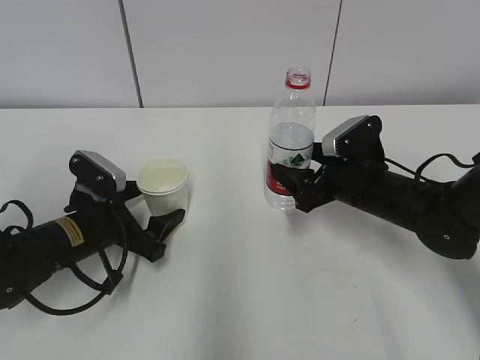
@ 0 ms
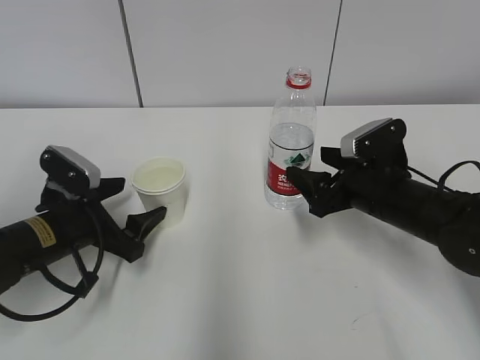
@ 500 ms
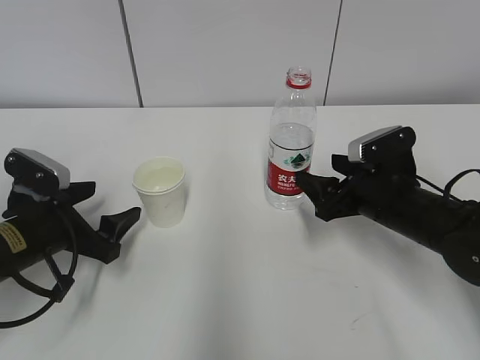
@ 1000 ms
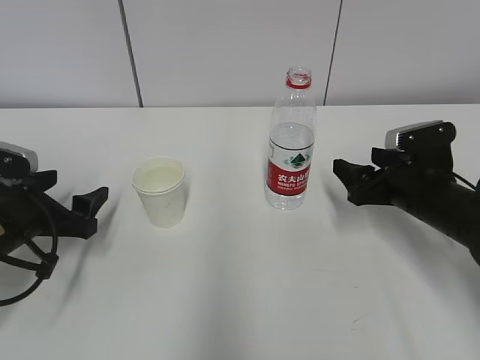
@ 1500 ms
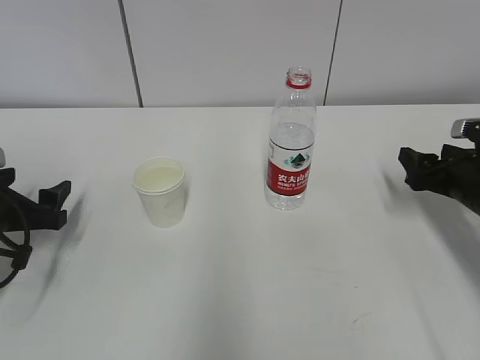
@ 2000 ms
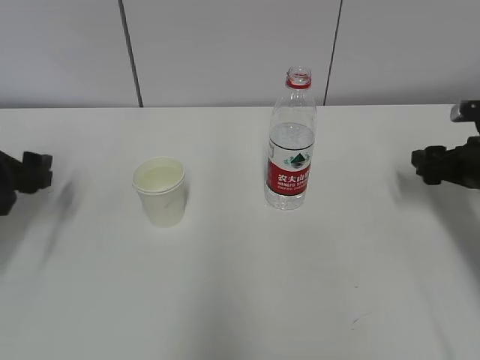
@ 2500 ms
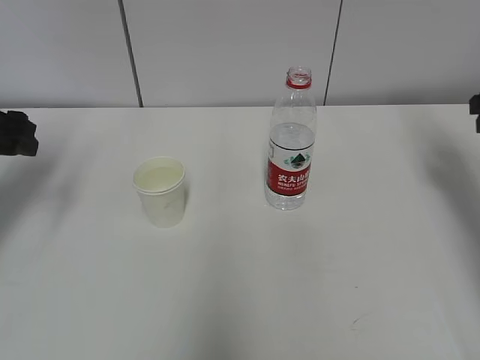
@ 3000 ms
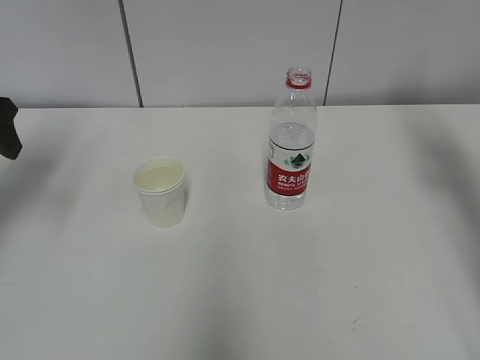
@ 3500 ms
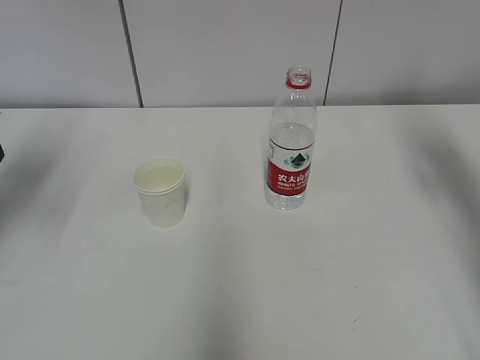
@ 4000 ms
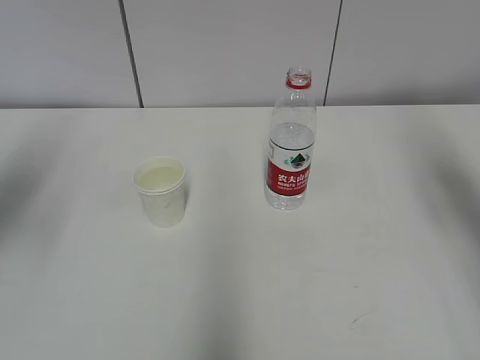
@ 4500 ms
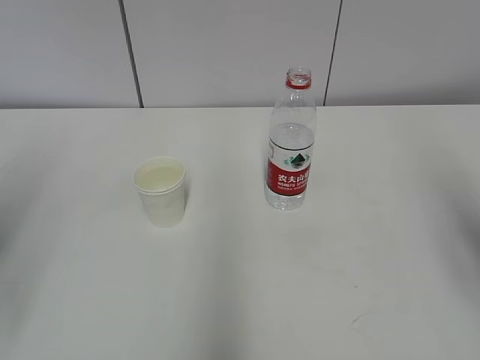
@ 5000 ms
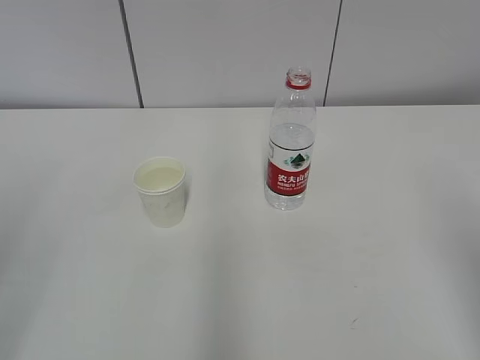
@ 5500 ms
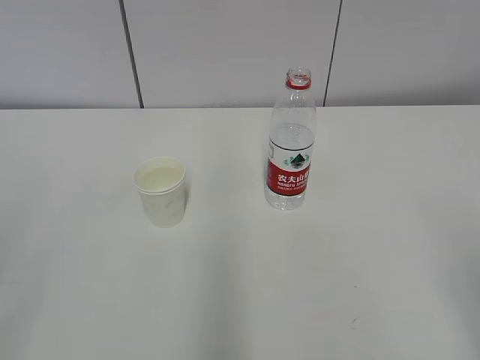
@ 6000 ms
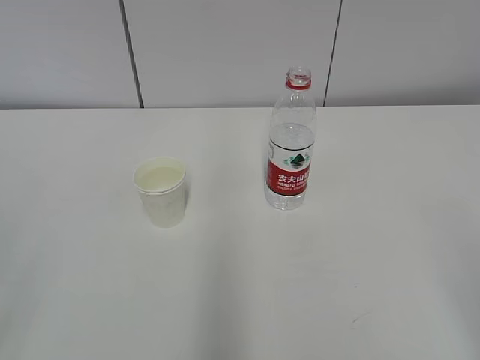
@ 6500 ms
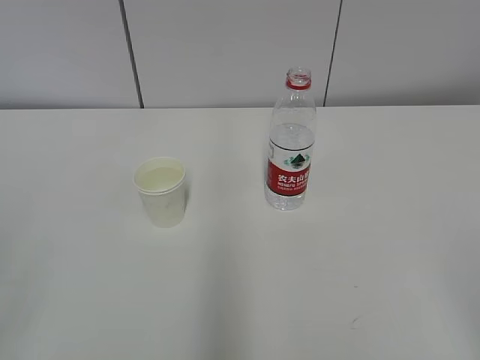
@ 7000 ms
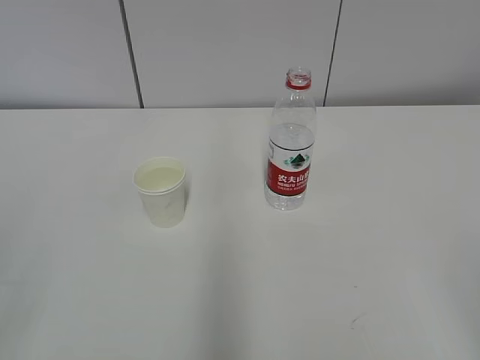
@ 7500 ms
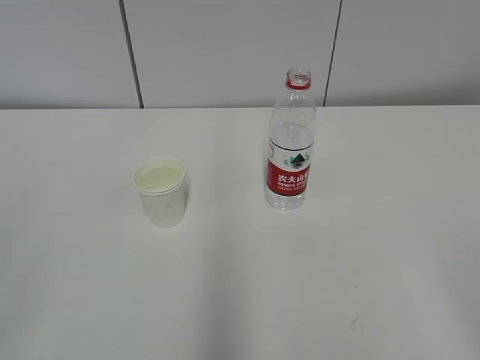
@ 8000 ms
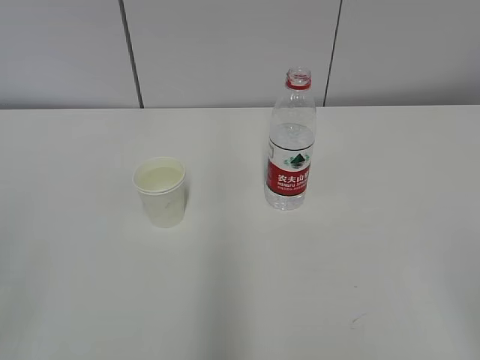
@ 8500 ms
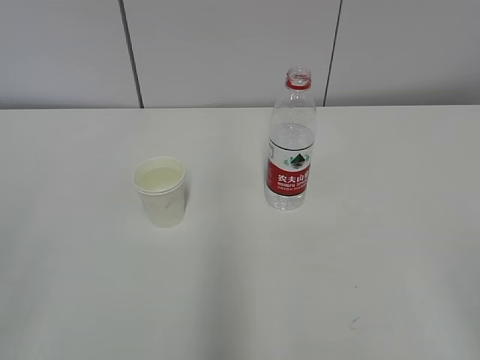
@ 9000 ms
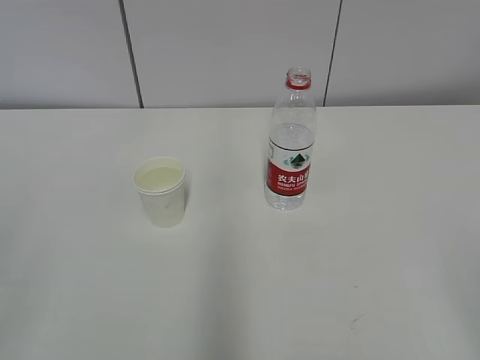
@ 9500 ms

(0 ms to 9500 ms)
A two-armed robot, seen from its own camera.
0 ms - 2000 ms: The right gripper shifts some 15 cm to the right, while the left gripper travels to the left by some 10 cm.
2000 ms - 4000 ms: The two grippers go approximately 20 cm upward.
4000 ms - 5500 ms: Both grippers move backward, approximately 25 cm.
7500 ms - 9500 ms: The two grippers keep their place.

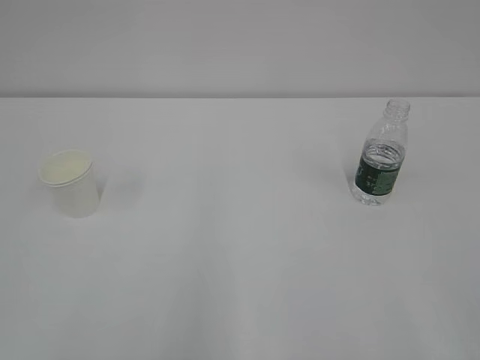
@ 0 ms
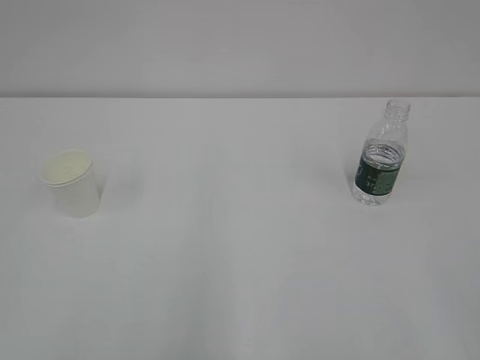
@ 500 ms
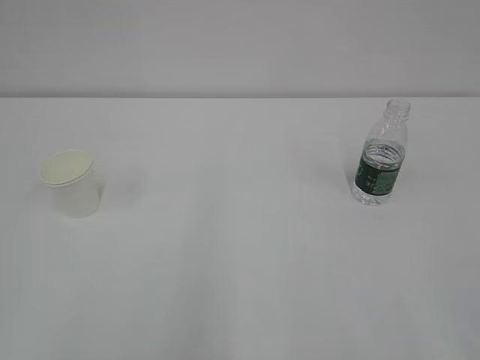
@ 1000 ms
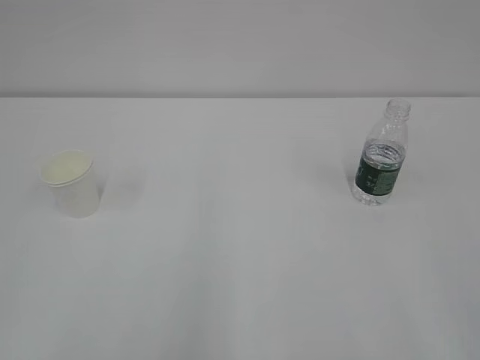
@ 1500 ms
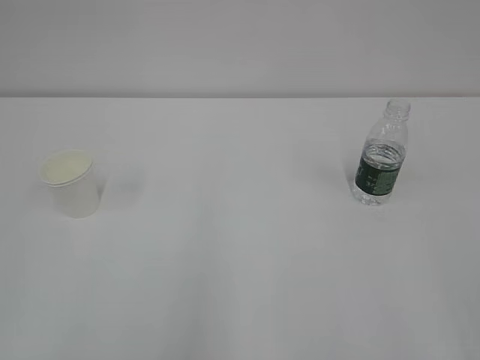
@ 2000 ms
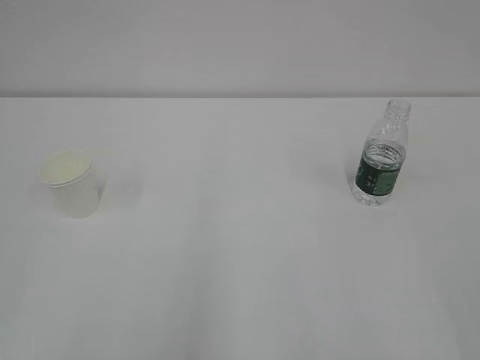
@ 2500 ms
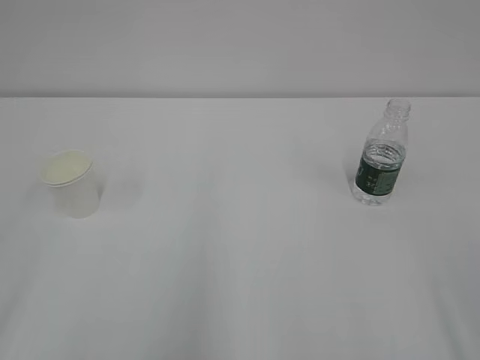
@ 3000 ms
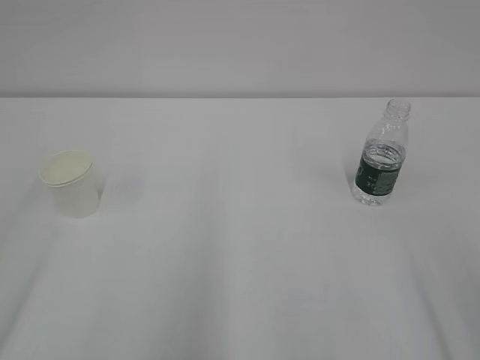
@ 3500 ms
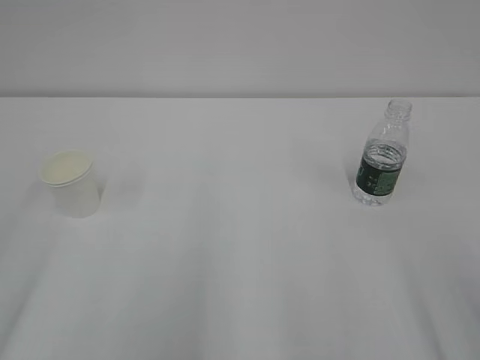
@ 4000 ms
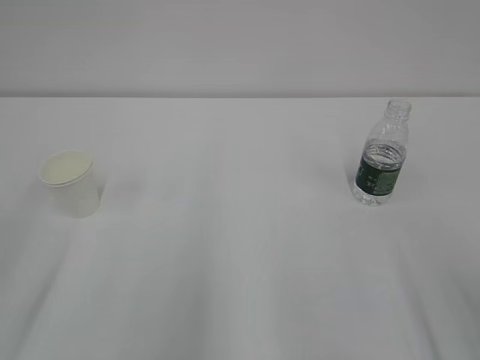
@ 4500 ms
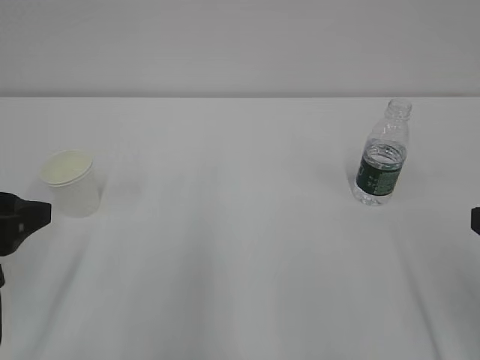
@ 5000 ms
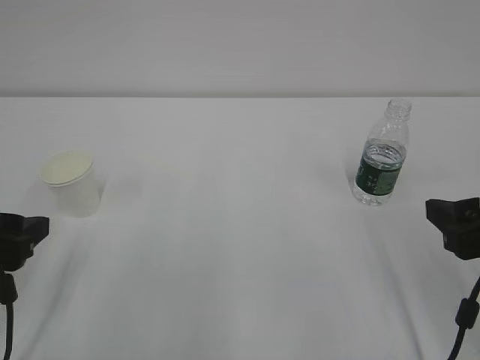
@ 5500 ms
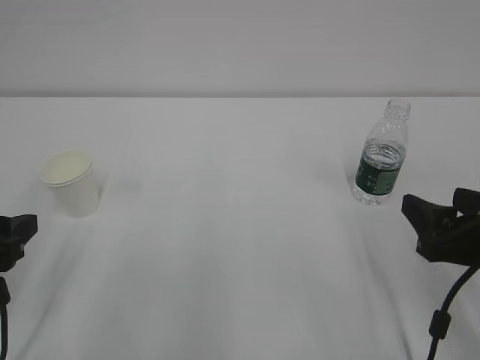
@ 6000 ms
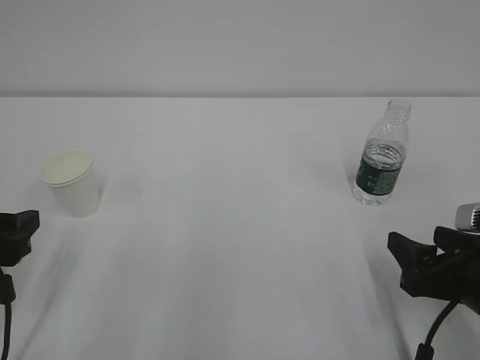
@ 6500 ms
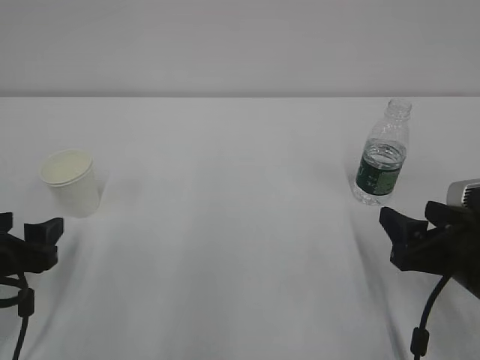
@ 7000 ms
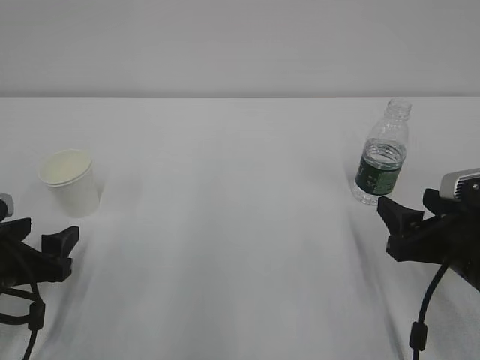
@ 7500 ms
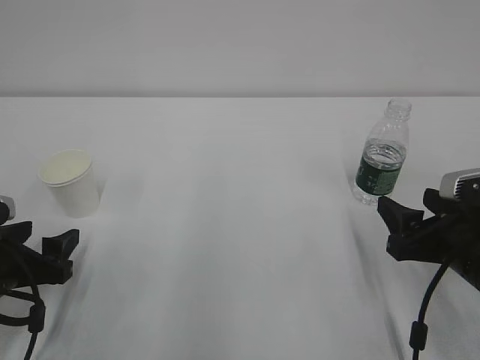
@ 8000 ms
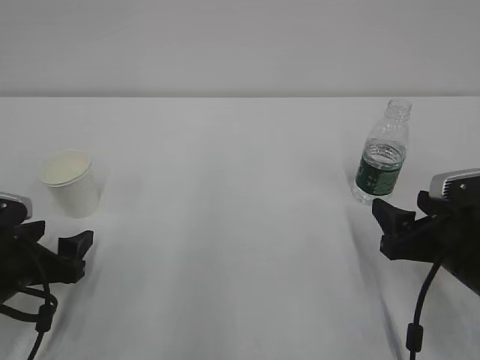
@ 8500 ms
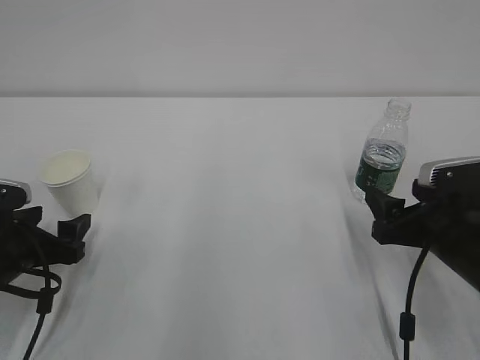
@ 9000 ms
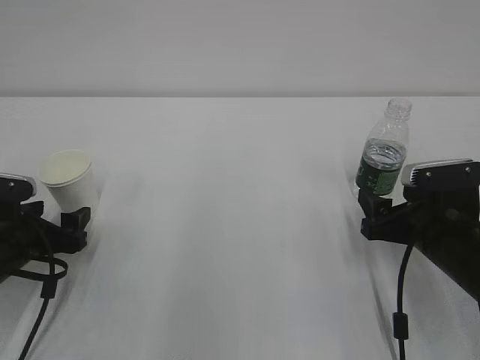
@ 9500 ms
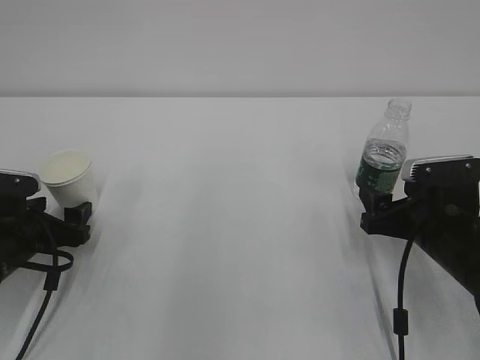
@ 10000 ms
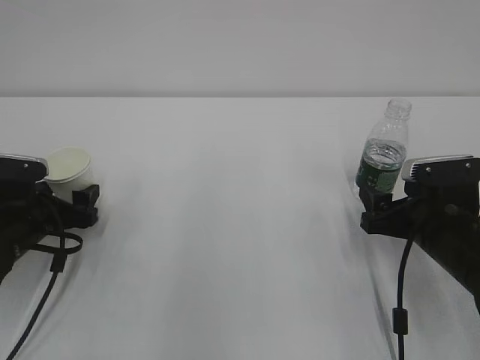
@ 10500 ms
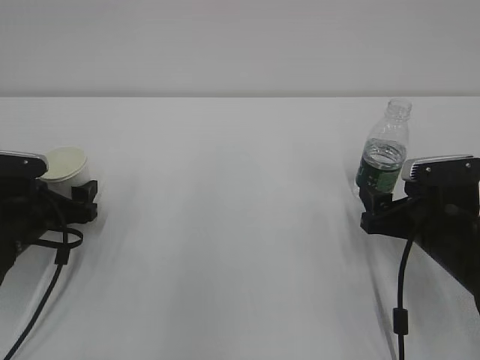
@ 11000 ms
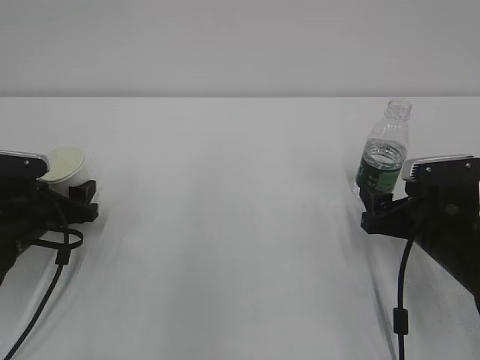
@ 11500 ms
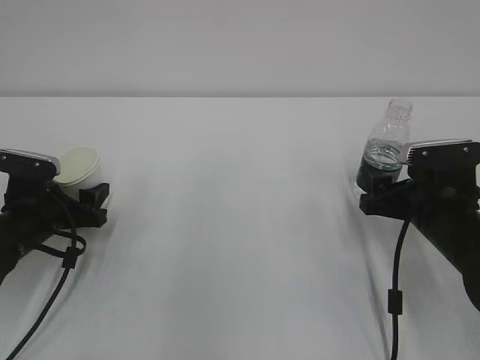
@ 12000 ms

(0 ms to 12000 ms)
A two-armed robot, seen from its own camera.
4000 ms - 6000 ms: The right gripper shifts some 15 cm forward and downward; the left gripper shifts about 15 cm downward and forward.
6000 ms - 8000 ms: The left gripper travels downward by approximately 10 cm.
8000 ms - 10000 ms: The grippers both shift forward by about 5 cm.
10000 ms - 12000 ms: The left gripper closes up.

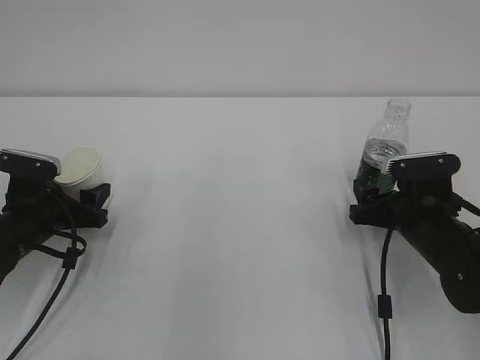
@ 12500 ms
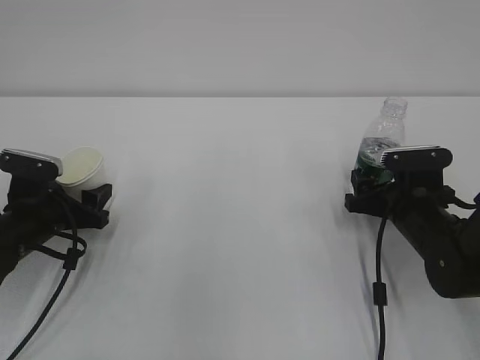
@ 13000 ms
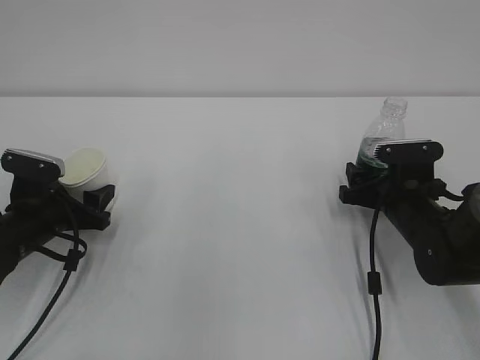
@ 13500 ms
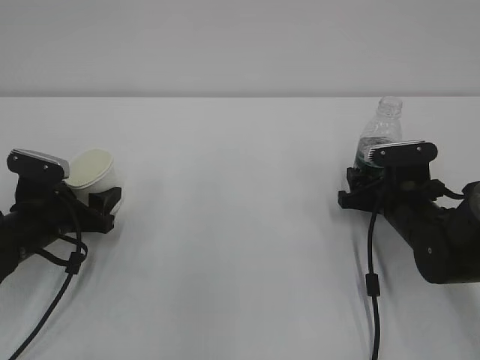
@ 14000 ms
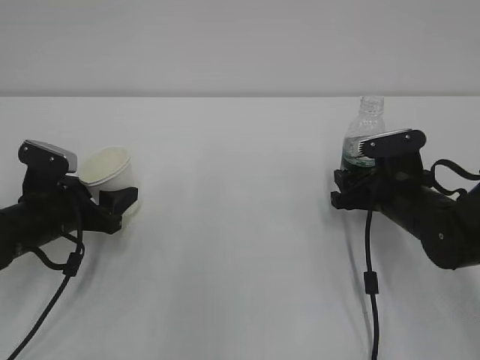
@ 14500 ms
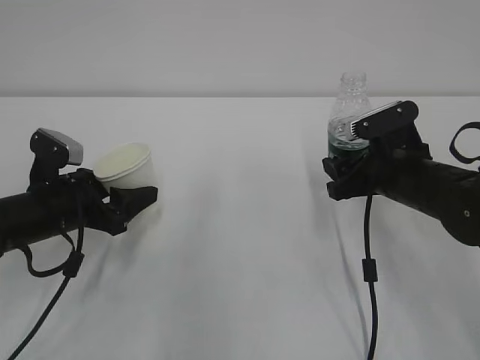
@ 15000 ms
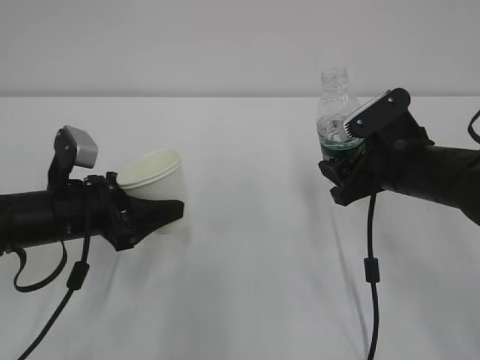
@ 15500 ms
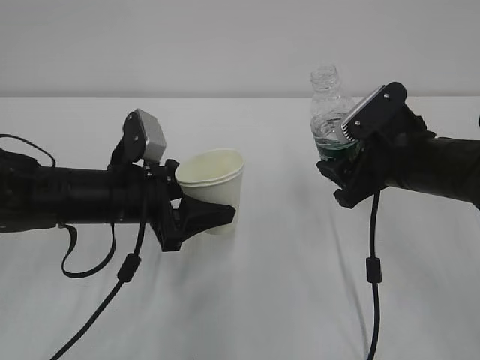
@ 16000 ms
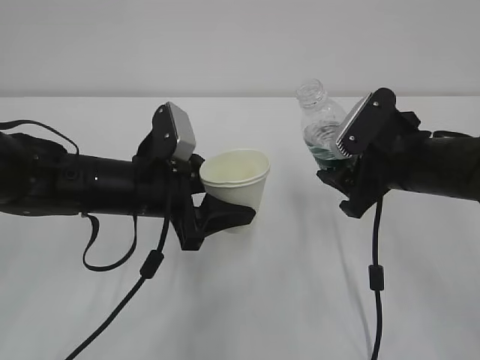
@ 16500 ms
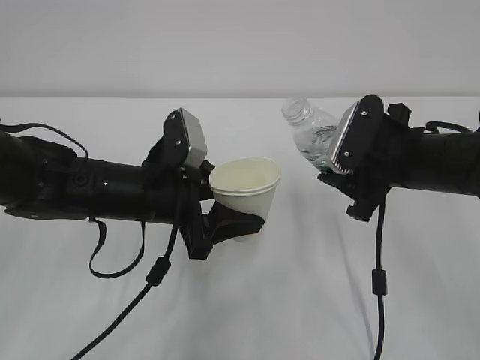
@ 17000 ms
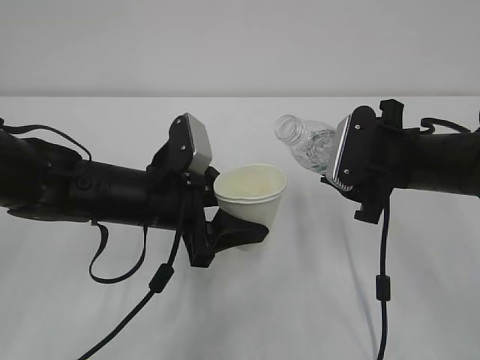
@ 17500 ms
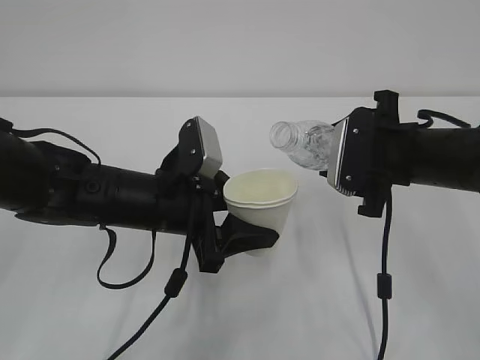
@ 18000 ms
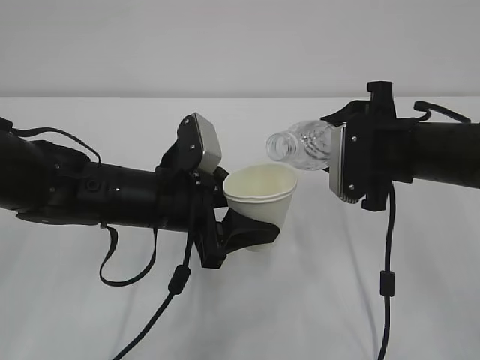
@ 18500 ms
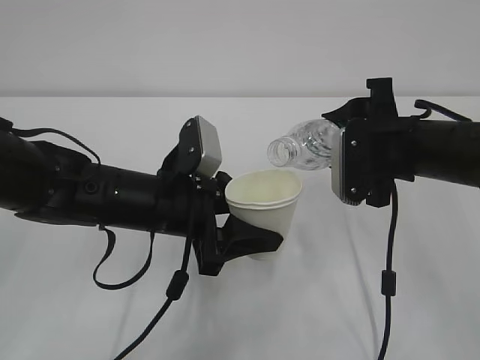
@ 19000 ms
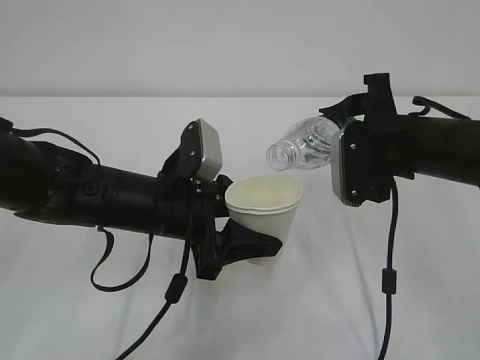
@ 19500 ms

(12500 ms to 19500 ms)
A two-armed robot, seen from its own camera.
12500 ms - 14500 ms: There are only small adjustments of the grippers.
14500 ms - 16000 ms: The right gripper is displaced upward by about 10 cm, while the left gripper shifts about 10 cm to the right and upward.
